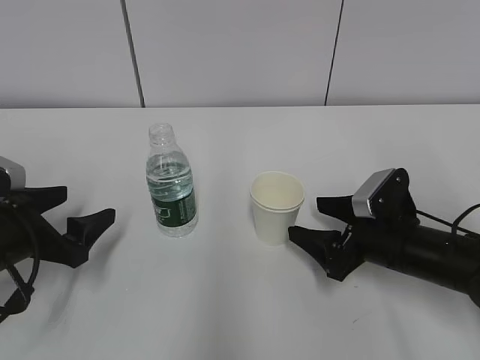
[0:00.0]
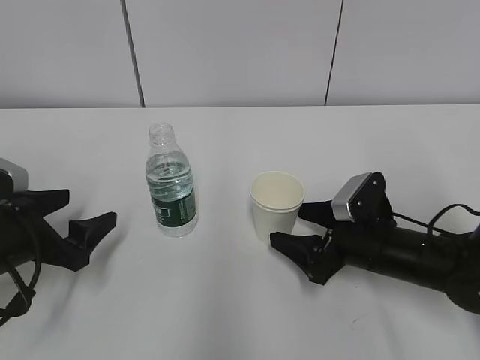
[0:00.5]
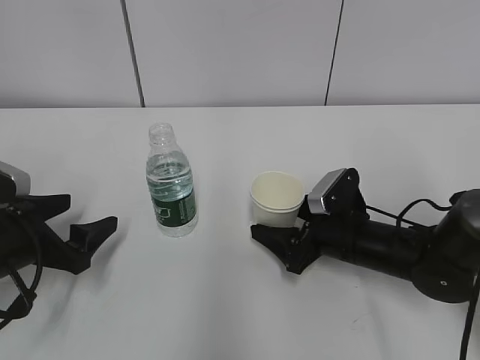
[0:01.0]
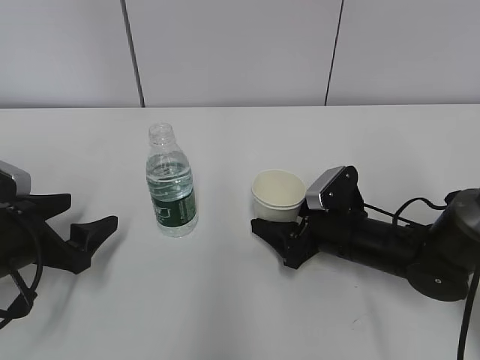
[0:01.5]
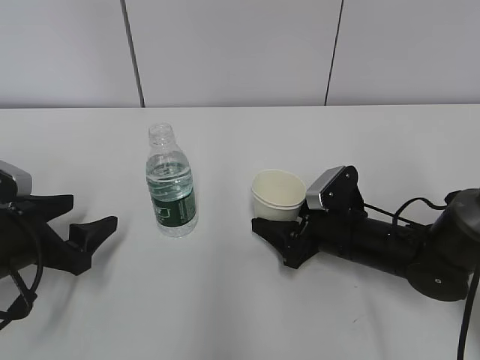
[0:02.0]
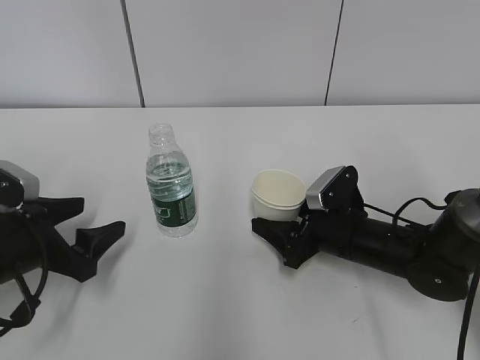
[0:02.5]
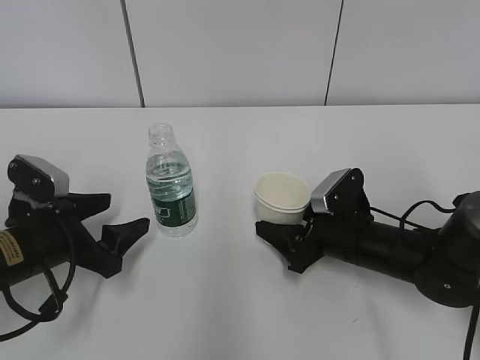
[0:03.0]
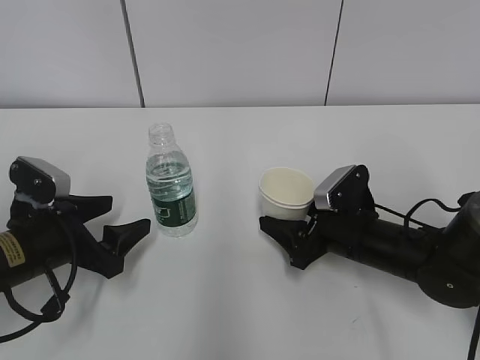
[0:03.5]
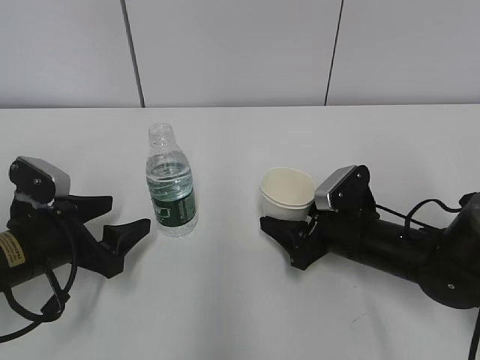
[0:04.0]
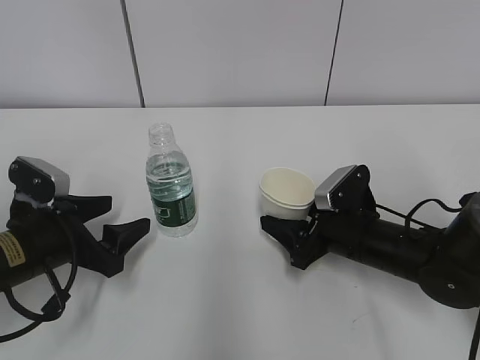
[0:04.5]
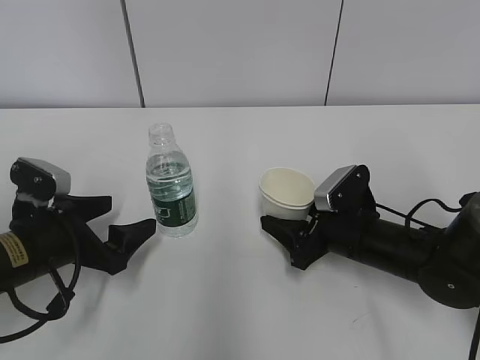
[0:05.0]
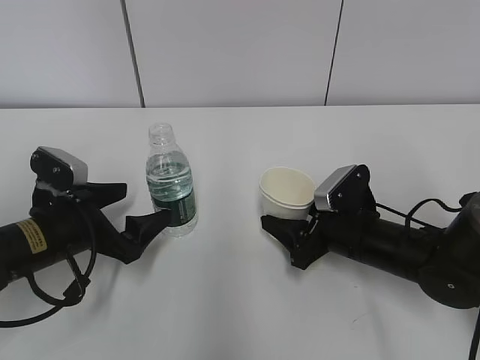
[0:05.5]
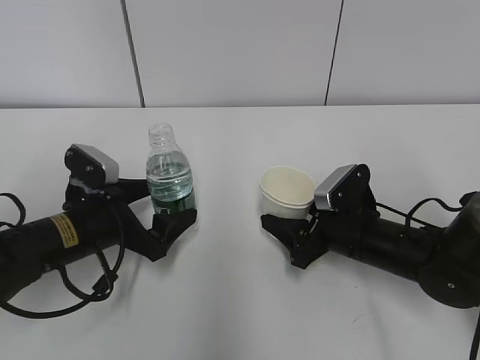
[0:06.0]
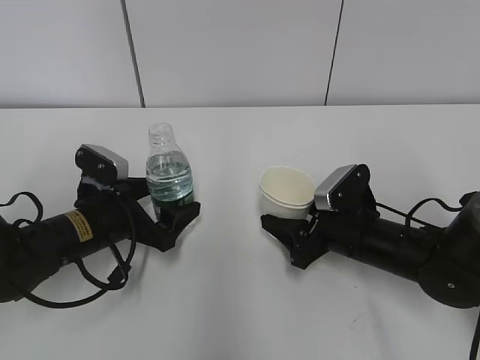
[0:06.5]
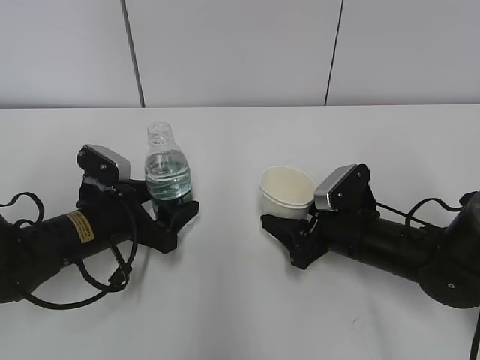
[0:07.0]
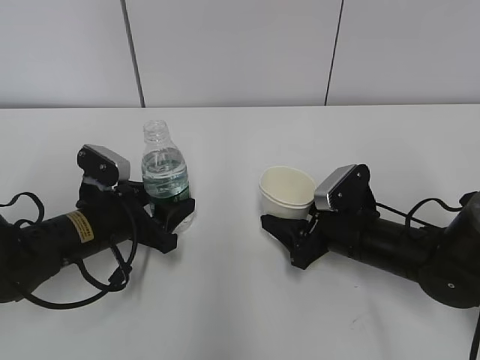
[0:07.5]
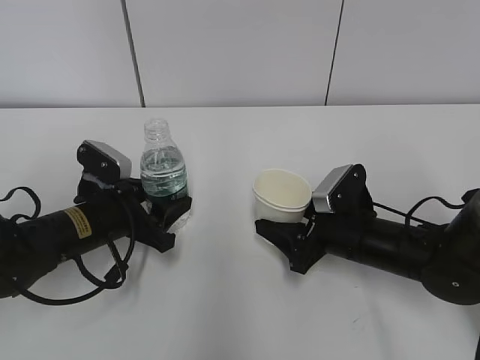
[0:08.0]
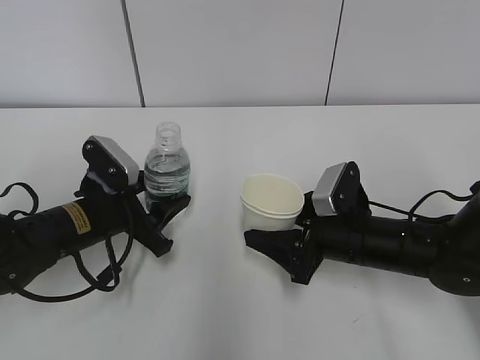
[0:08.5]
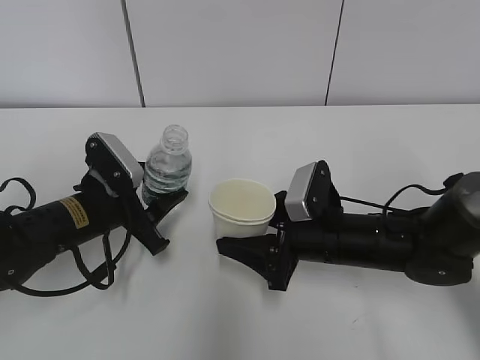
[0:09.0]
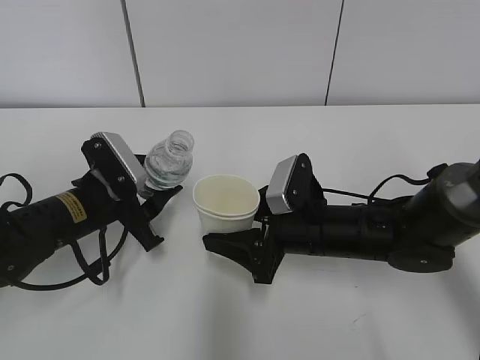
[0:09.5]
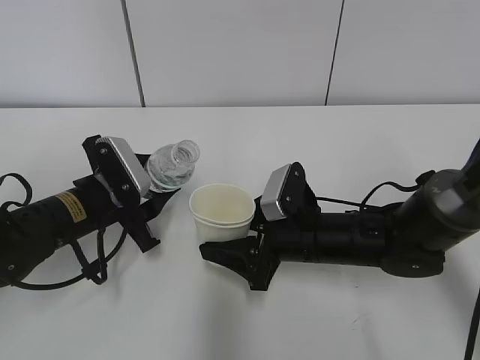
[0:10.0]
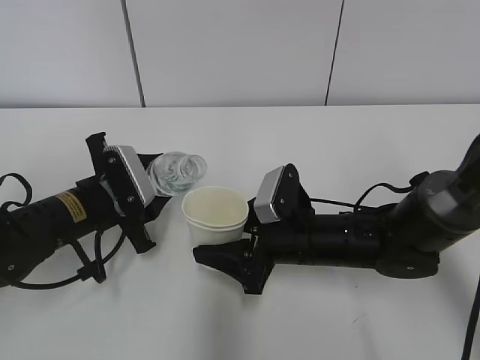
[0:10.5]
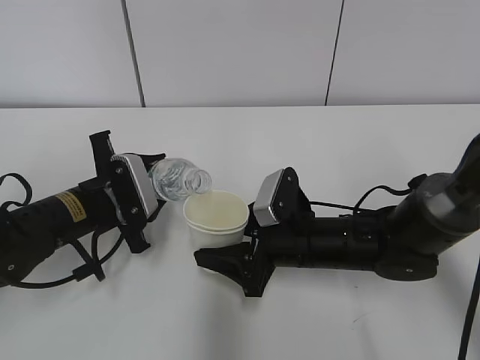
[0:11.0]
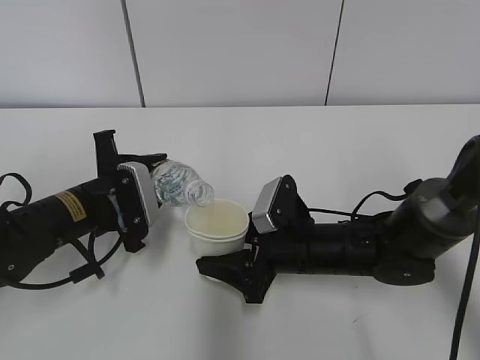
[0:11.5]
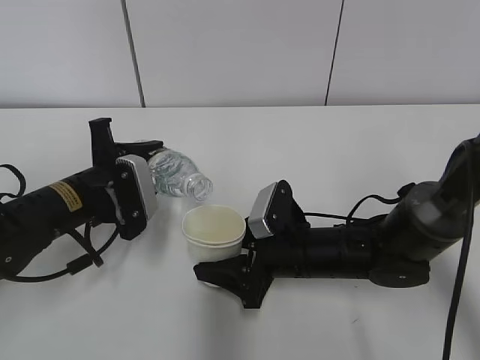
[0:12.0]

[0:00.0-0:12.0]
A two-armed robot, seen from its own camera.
Step, 0:01.0 to 0:05.0: Grab the water bottle with the left hand.
Step, 0:05.5 to 0:08.5: Lift the paper cup with the right hand.
0:00.0 to 0:02.0: The right gripper changes place by some 5 cm, and closes.
0:02.0 to 0:04.0: The grippers move only a little.
0:04.0 to 0:06.0: The left gripper moves roughly 5 cm.
0:06.0 to 0:08.0: The left gripper closes its fingers.
0:08.0 to 0:10.0: The right gripper travels to the left by roughly 5 cm.

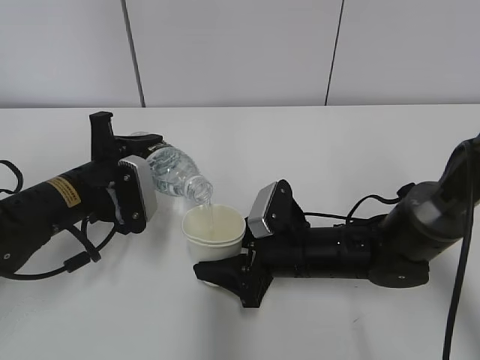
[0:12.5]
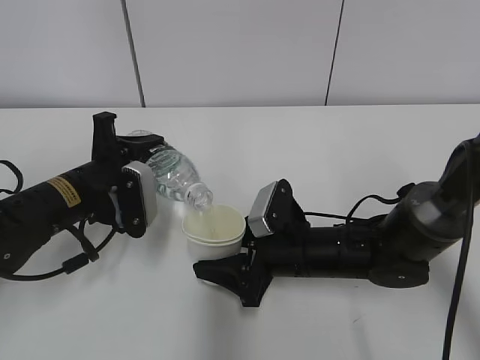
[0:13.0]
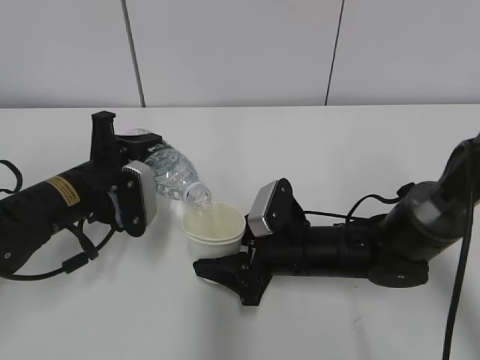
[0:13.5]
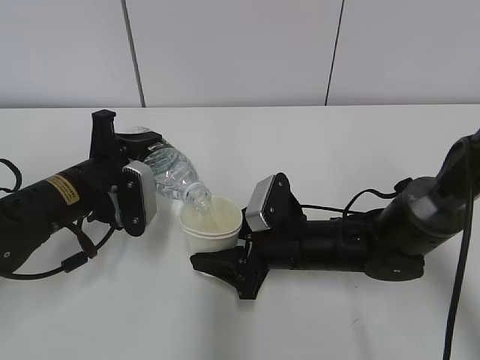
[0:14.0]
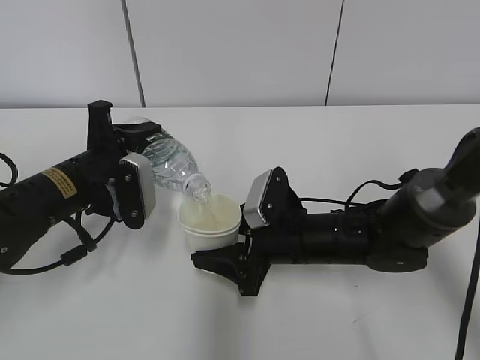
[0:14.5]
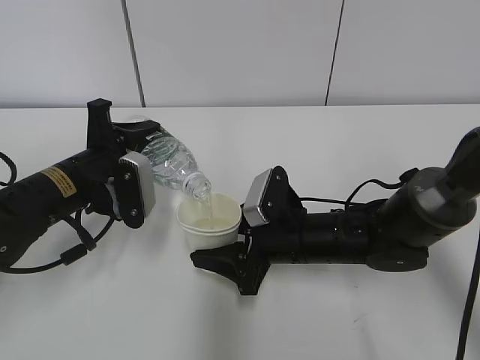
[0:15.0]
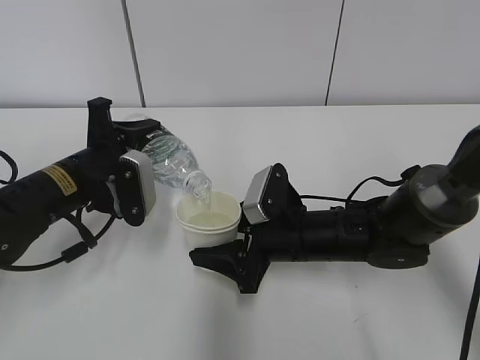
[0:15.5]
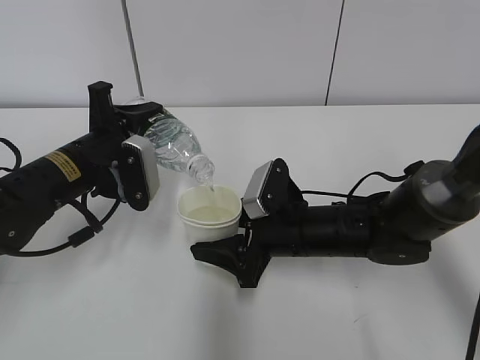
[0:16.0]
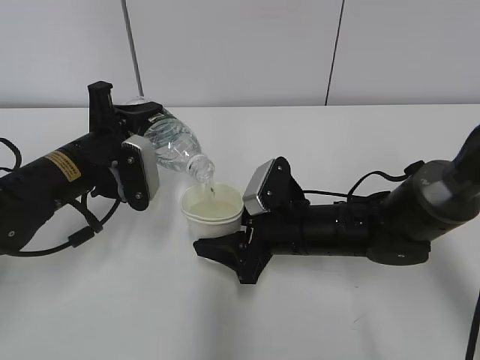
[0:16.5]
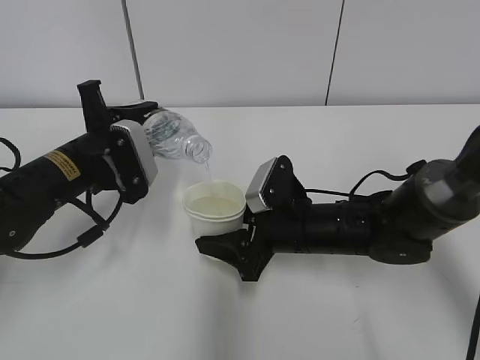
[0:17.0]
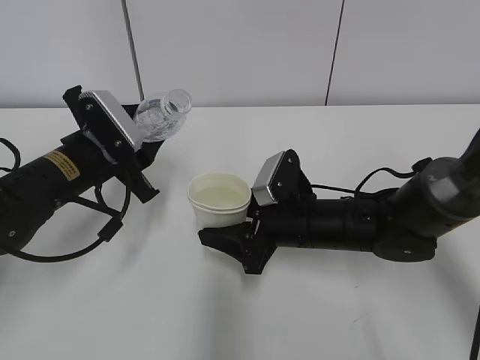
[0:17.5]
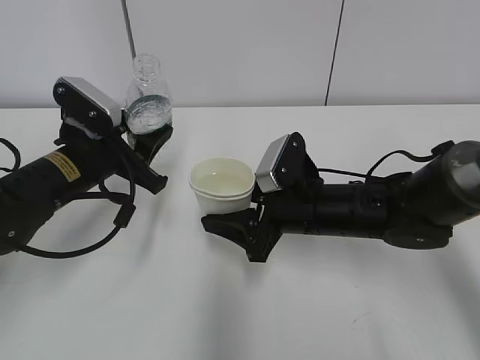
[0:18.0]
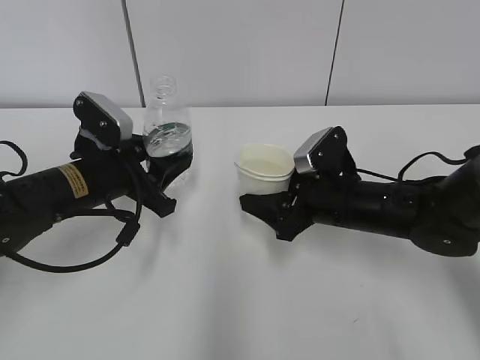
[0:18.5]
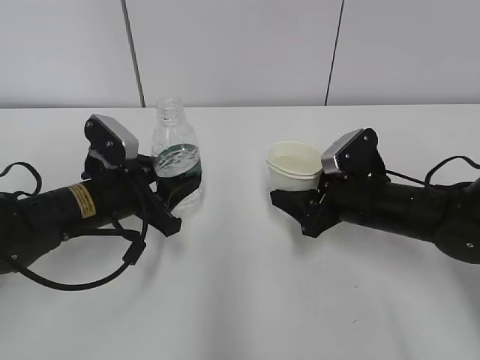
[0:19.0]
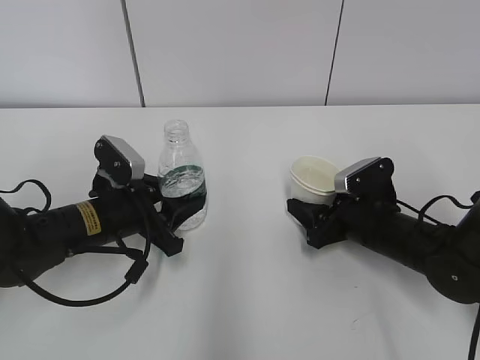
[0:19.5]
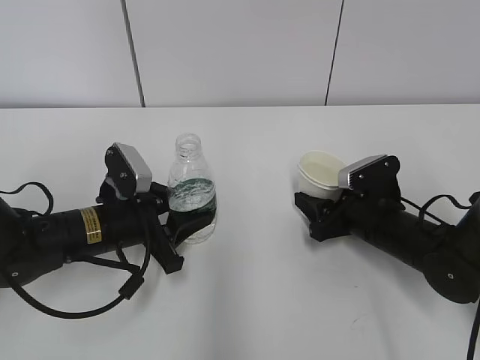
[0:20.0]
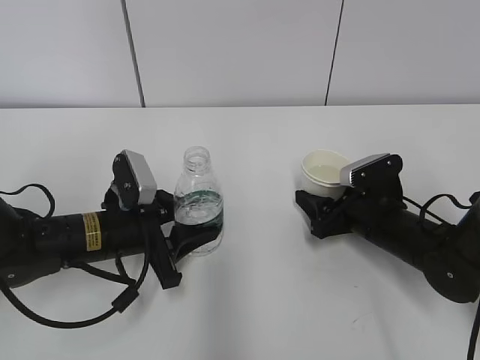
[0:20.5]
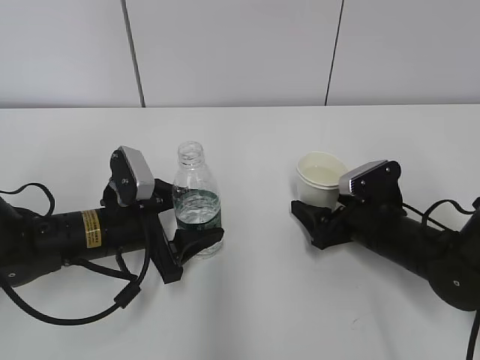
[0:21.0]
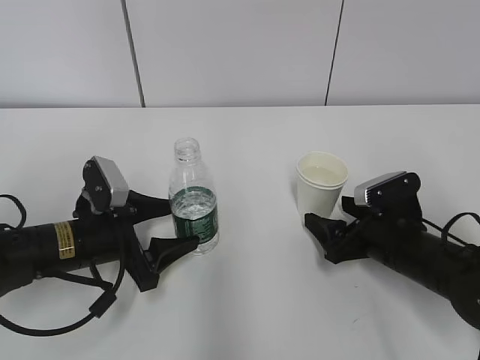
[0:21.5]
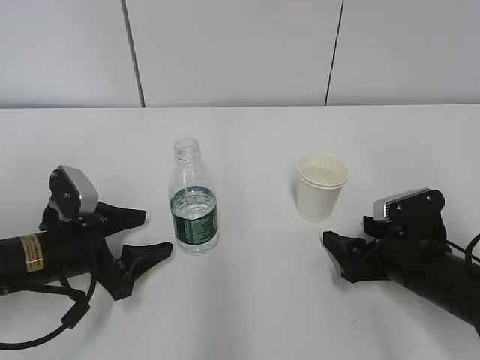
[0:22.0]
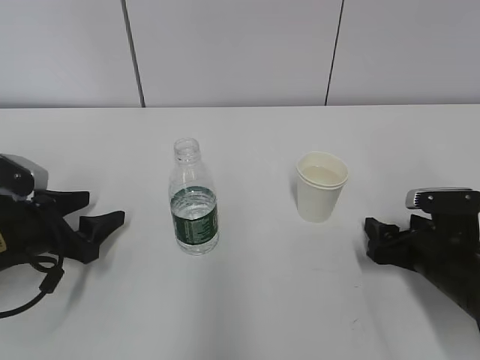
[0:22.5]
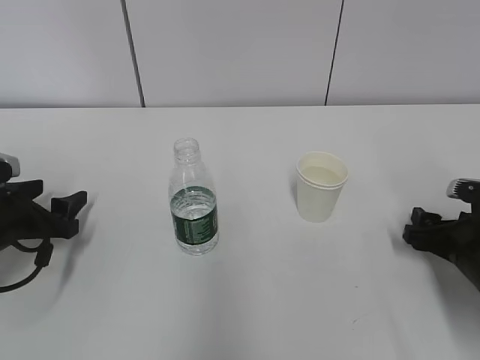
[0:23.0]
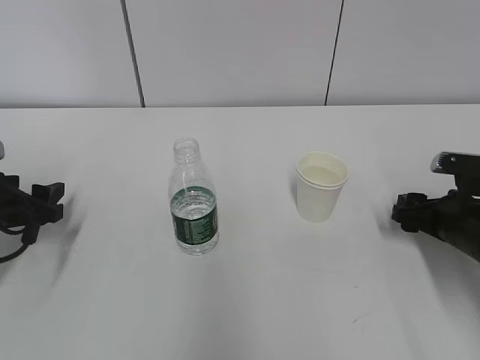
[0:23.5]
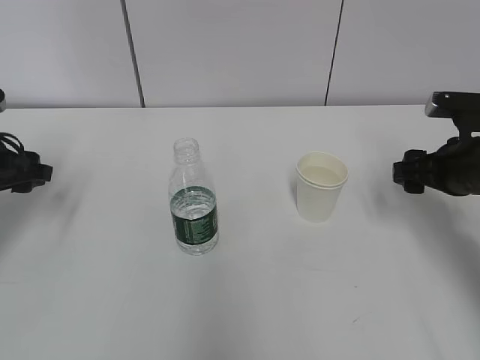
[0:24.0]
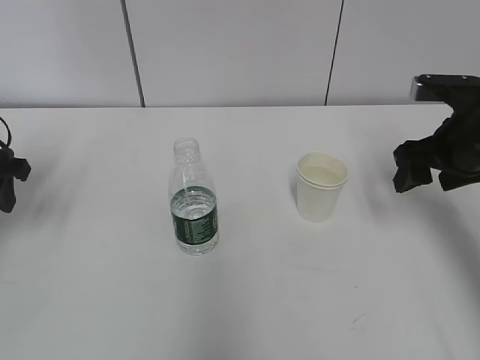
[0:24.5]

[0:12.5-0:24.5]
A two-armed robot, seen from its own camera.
Step, 0:13.0 to 0:13.5: Collect water with the left hand.
Step, 0:14.0 to 0:16.0: Place the paper cup with the right hand.
0:12.5 to 0:16.5: There are only small adjustments of the grippers.
0:16.5 to 0:18.5: The right gripper goes roughly 5 cm to the right.
0:18.5 to 0:20.5: The left gripper goes approximately 5 cm downward; the right gripper travels to the right and downward by approximately 10 cm, and opens.
0:20.5 to 0:22.5: The left gripper is displaced to the left by approximately 10 cm, and opens. The right gripper moves backward, some 5 cm.
0:22.5 to 0:24.5: The left gripper goes about 15 cm upward and to the left. The right gripper travels upward and forward by about 15 cm.

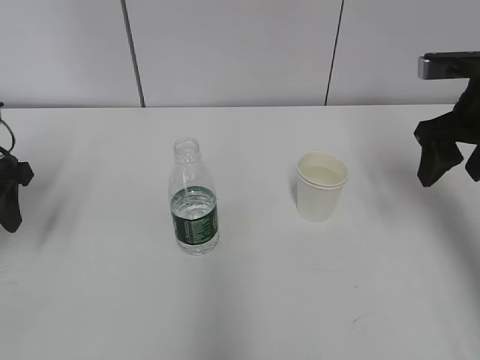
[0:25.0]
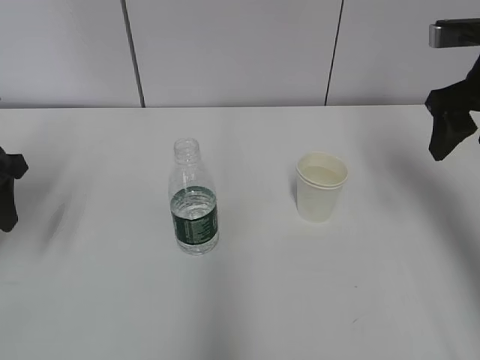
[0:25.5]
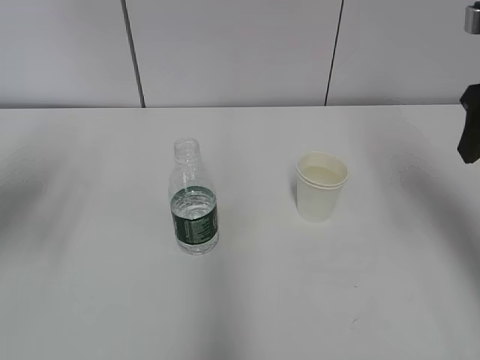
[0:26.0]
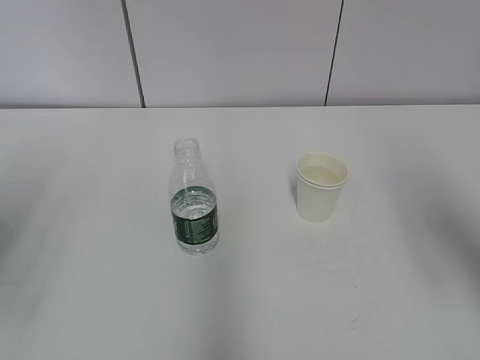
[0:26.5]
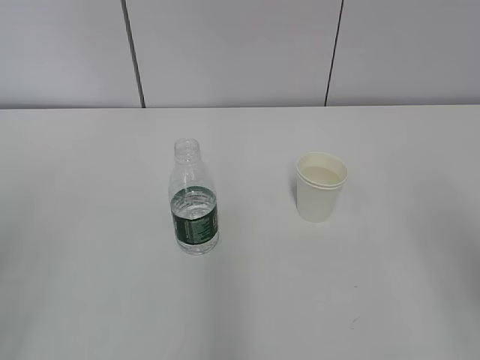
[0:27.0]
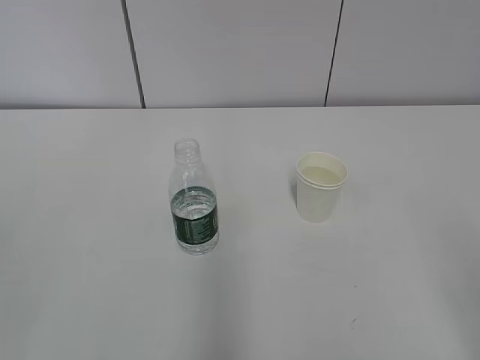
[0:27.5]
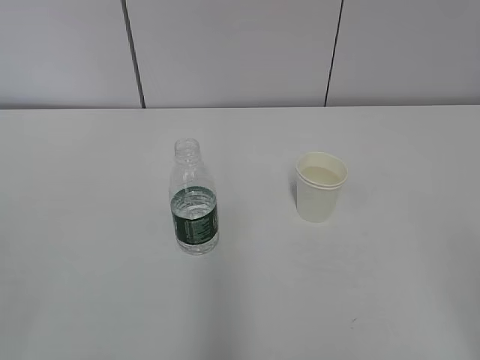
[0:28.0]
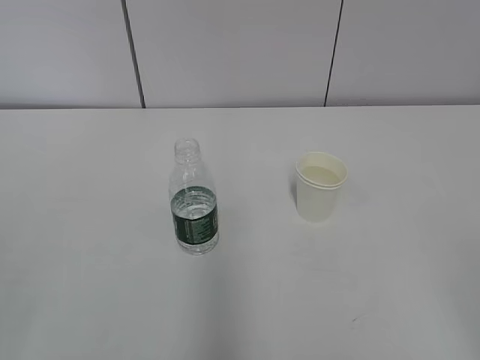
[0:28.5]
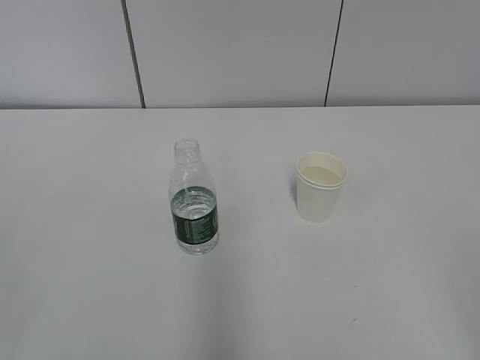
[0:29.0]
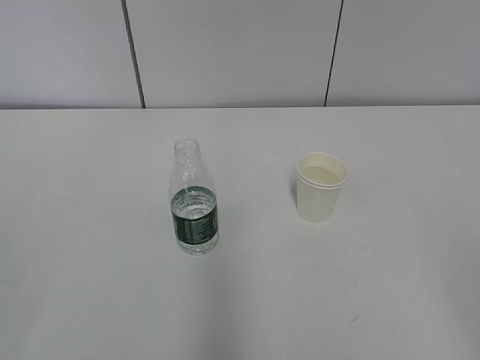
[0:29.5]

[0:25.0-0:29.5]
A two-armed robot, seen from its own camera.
0:25.0 to 0:27.0: The two grippers go some 25 cm backward.
